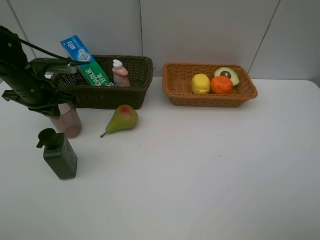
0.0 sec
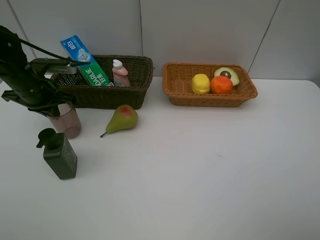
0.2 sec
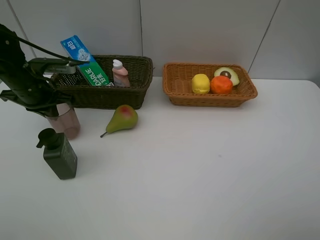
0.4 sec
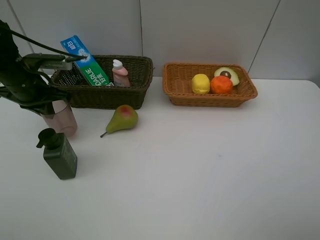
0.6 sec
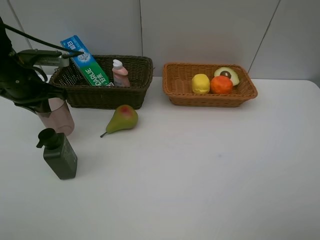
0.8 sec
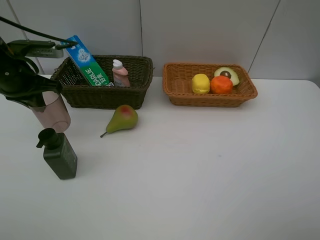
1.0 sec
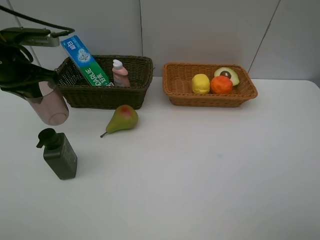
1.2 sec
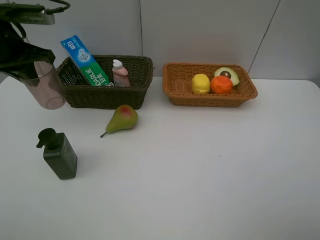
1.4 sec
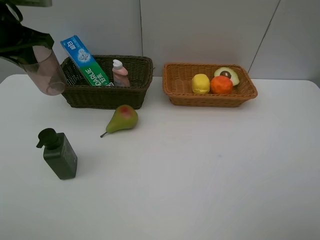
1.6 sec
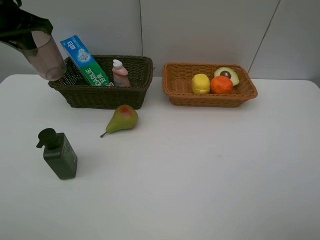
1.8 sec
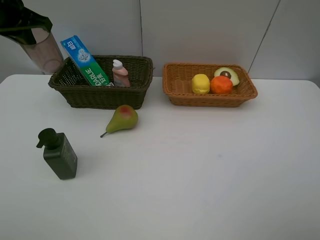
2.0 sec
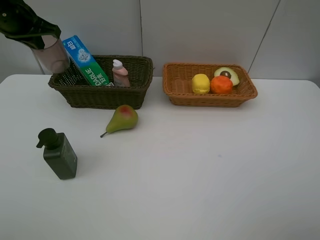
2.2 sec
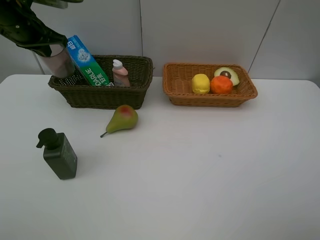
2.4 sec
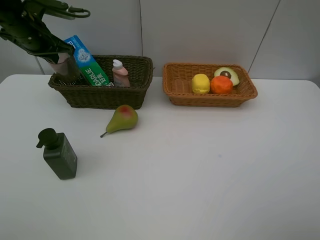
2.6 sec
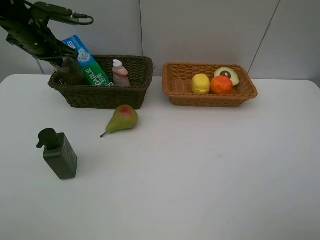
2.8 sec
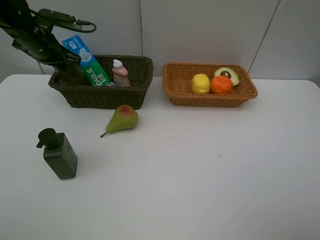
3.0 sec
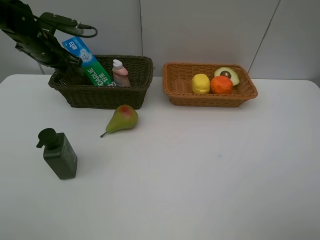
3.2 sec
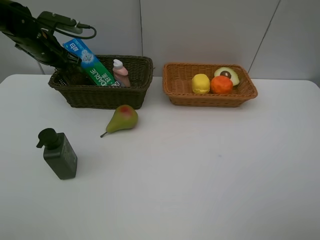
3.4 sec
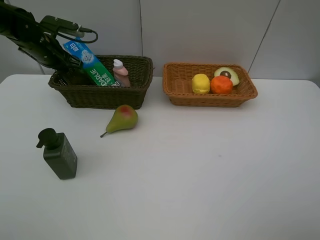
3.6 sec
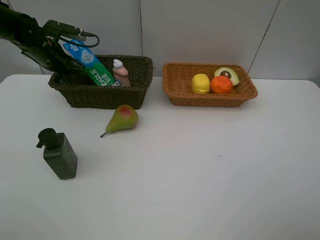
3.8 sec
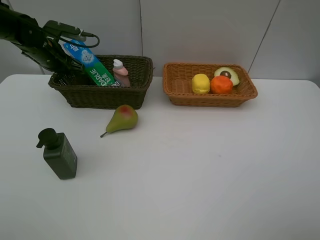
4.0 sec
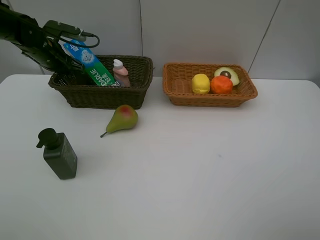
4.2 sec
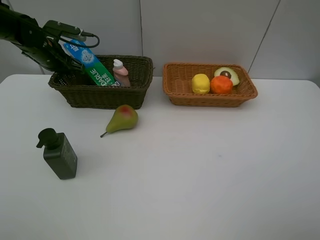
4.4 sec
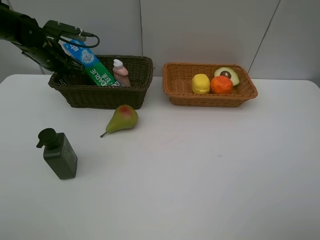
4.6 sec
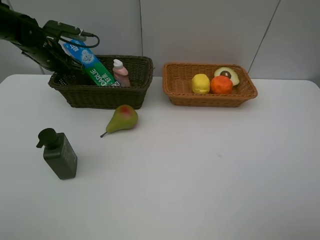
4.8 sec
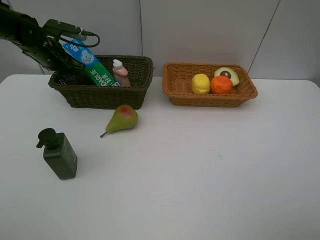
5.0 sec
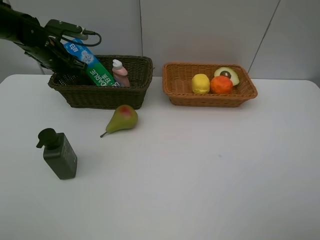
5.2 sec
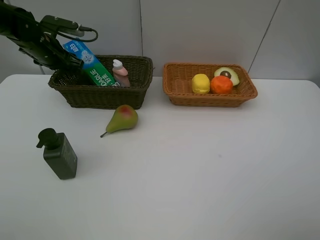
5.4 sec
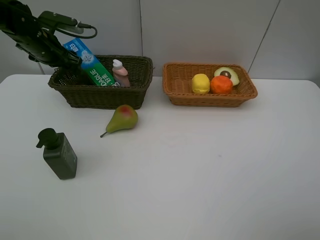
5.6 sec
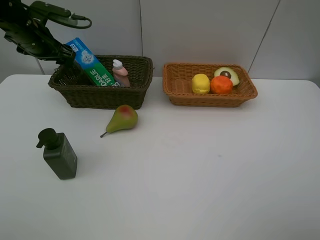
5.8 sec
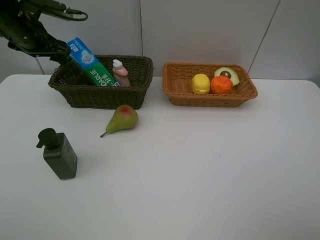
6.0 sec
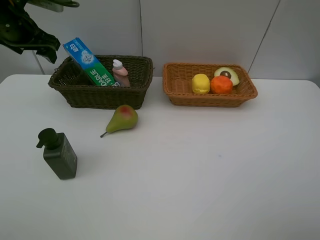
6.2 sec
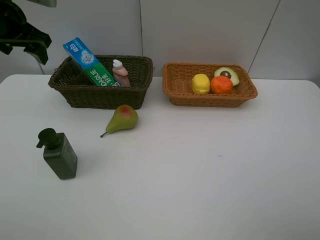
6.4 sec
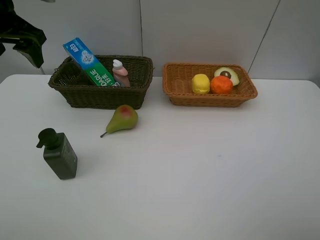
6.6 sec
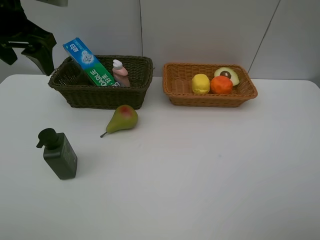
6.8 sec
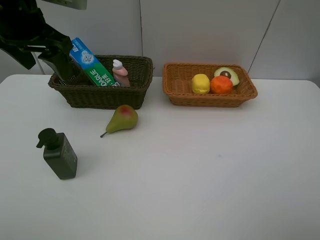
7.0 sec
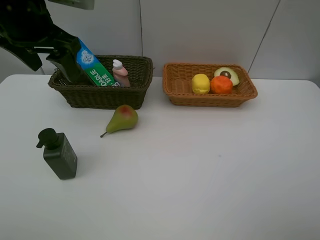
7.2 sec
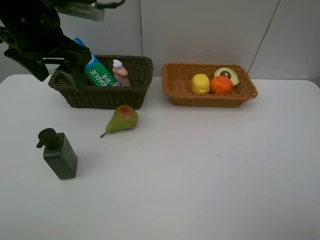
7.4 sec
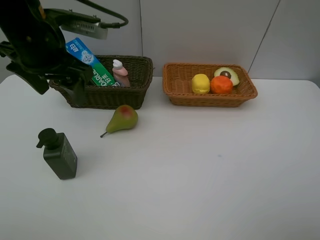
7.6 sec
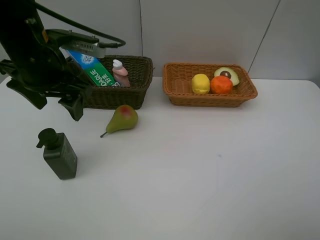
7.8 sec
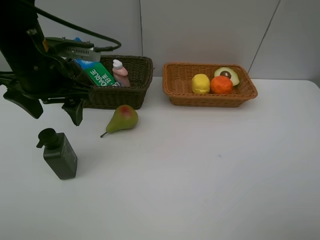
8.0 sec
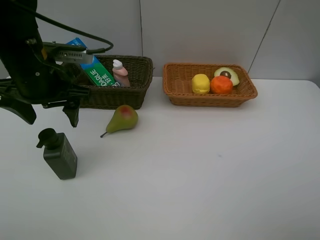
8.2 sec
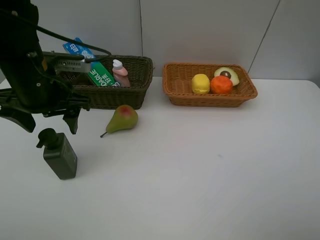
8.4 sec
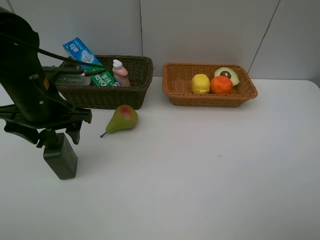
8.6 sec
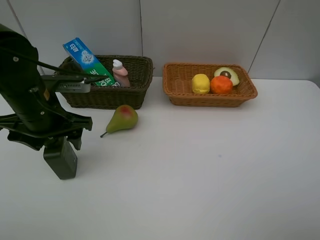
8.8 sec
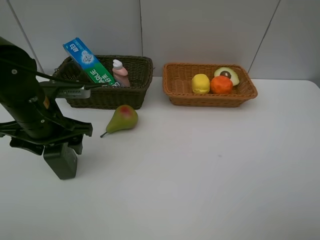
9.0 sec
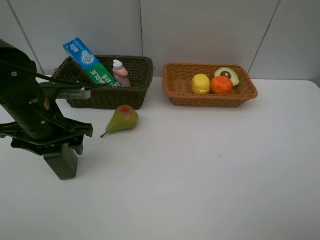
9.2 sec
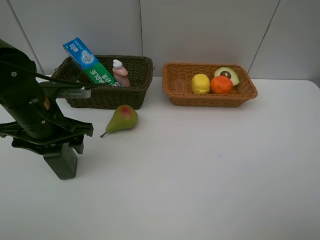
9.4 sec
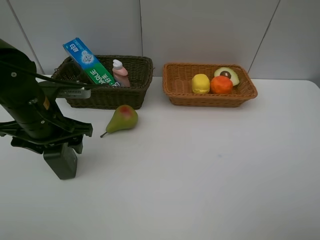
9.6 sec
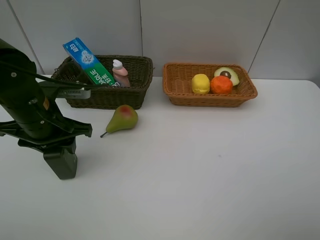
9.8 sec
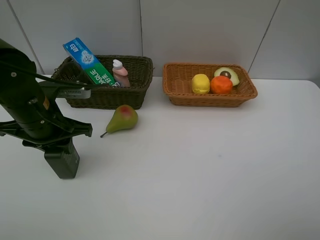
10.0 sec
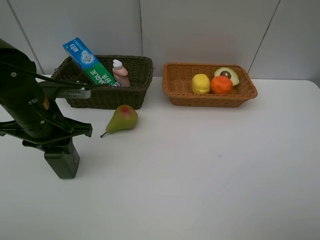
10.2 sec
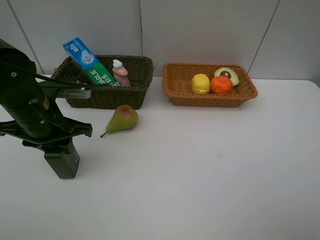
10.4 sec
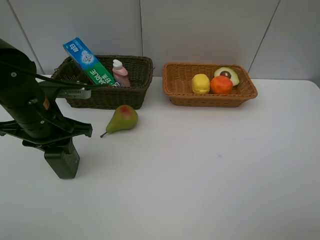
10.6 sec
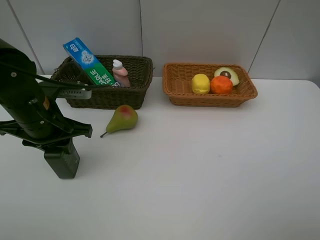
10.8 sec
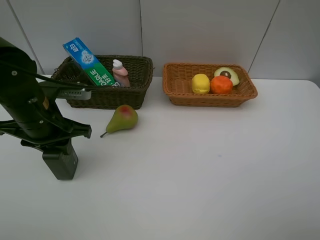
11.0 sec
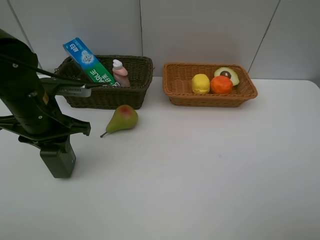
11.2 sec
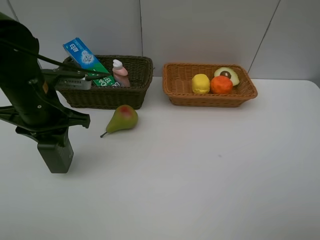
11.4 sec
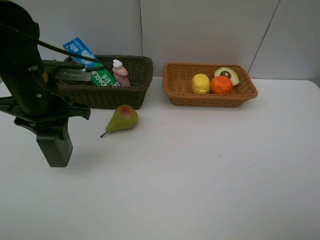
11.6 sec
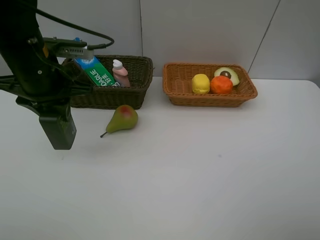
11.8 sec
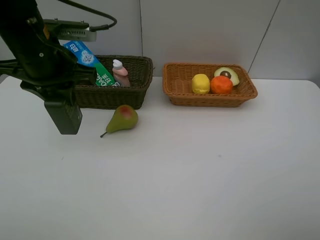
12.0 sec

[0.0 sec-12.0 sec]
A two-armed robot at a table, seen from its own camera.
Task of the whole recording: Place multiple objects separately in different baskets.
Step, 1.0 sec to 6.0 sec: Place the red cup in the dark basket with left gripper.
Step, 6.2 sec to 11.4 sec: Pick up the hard facial cleanser with left gripper.
0.0 sec to 1.6 sec: The left gripper heads upward, covering some 15 cm.
1.6 sec to 3.0 sec: The left gripper travels downward and forward by about 15 cm.
3.0 sec to 4.4 sec: The grippers move only a little.
4.4 sec to 6.0 sec: The left gripper moves upward, approximately 5 cm, and opens.
6.0 sec to 7.6 sec: The left gripper travels backward and to the right by about 20 cm.
7.6 sec to 9.0 sec: The left gripper travels downward by approximately 10 cm.
9.0 sec to 10.4 sec: The left gripper closes up.
10.4 sec to 12.0 sec: The left gripper moves upward, some 10 cm.

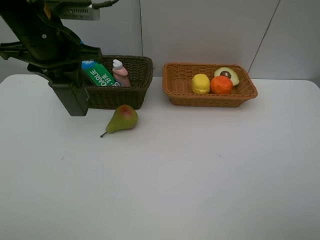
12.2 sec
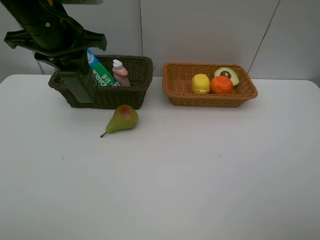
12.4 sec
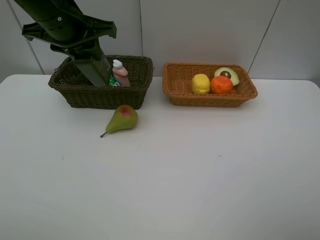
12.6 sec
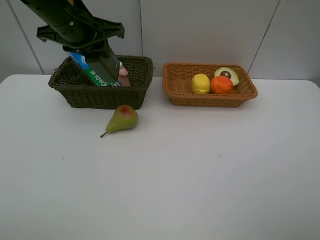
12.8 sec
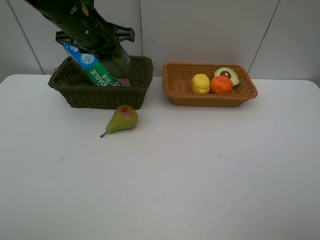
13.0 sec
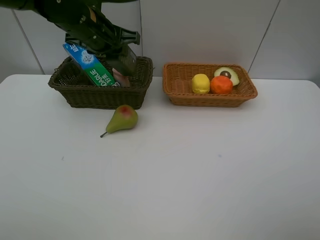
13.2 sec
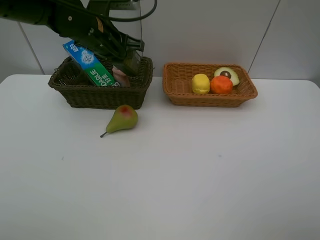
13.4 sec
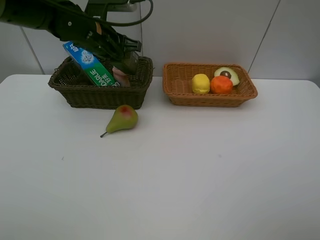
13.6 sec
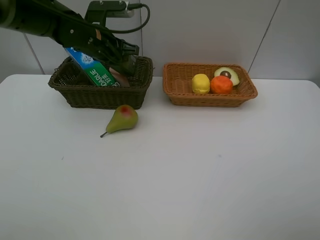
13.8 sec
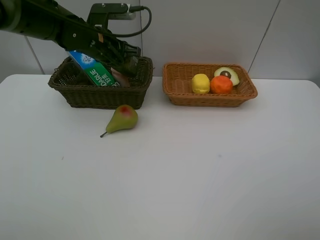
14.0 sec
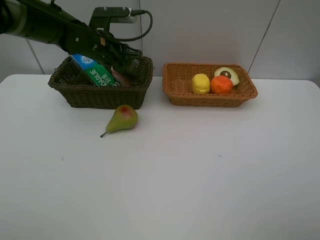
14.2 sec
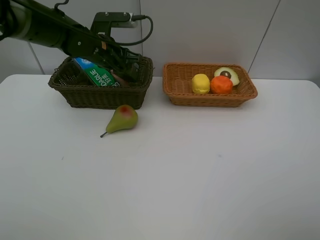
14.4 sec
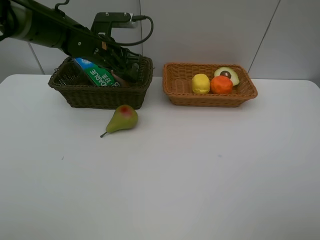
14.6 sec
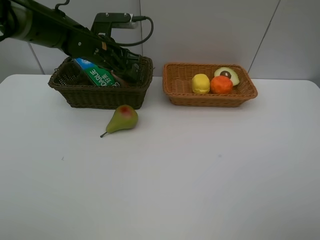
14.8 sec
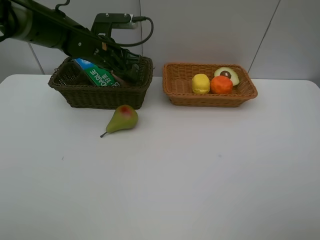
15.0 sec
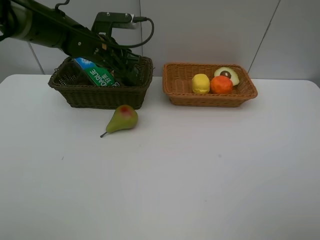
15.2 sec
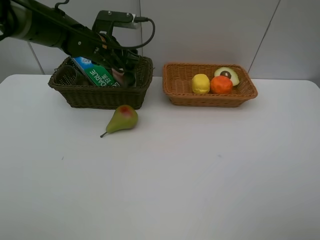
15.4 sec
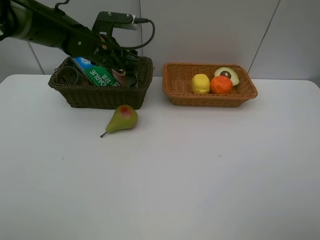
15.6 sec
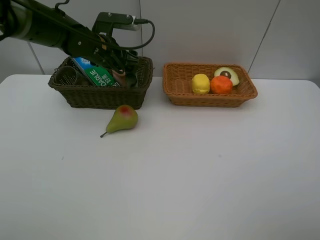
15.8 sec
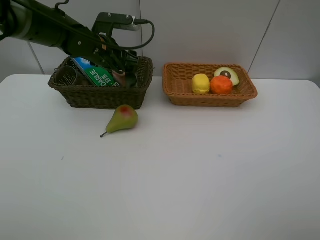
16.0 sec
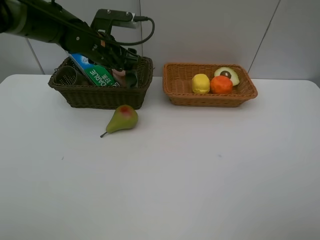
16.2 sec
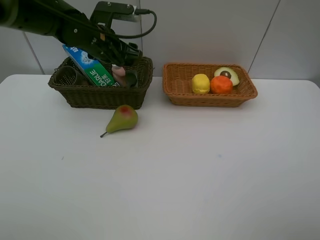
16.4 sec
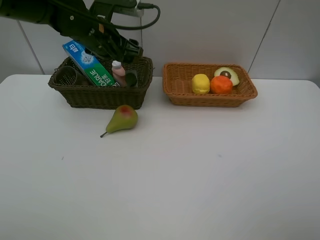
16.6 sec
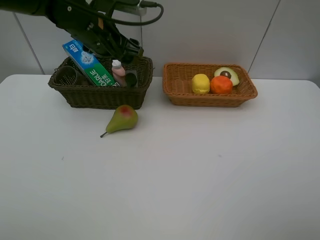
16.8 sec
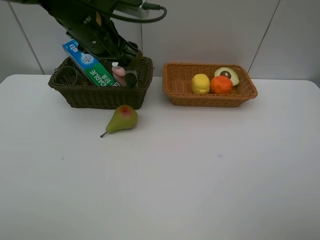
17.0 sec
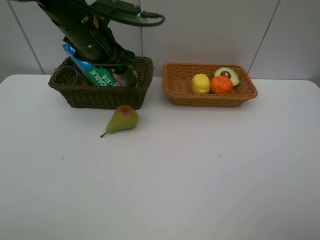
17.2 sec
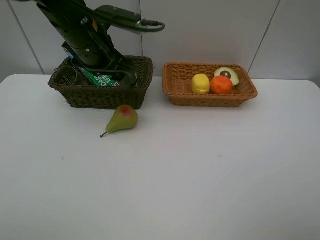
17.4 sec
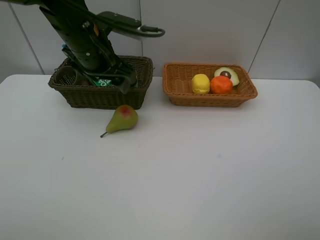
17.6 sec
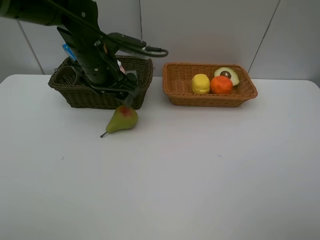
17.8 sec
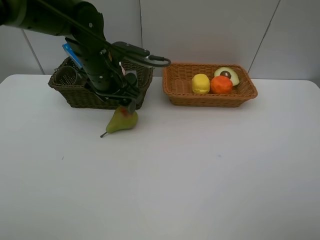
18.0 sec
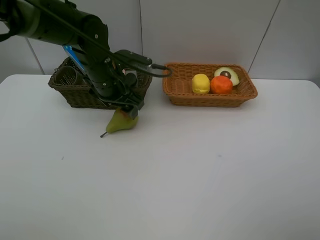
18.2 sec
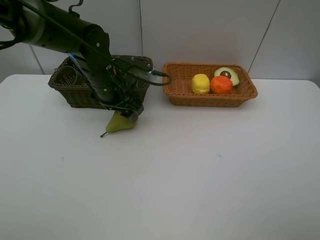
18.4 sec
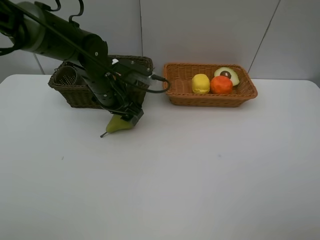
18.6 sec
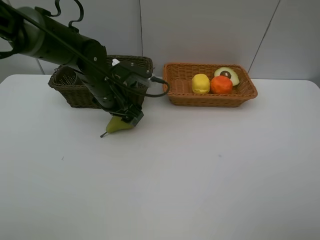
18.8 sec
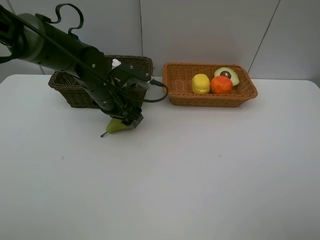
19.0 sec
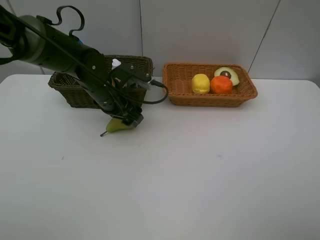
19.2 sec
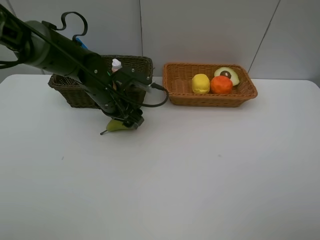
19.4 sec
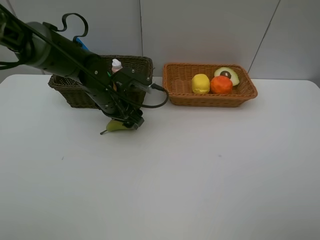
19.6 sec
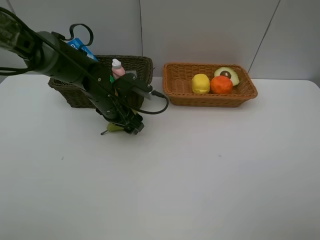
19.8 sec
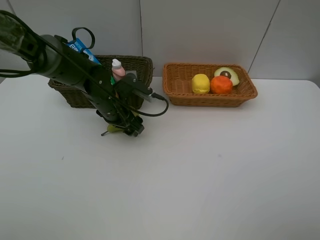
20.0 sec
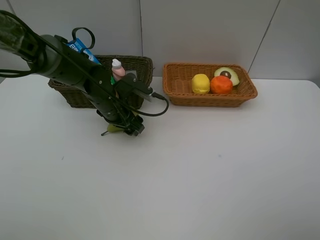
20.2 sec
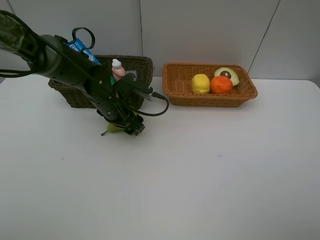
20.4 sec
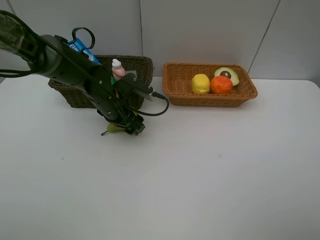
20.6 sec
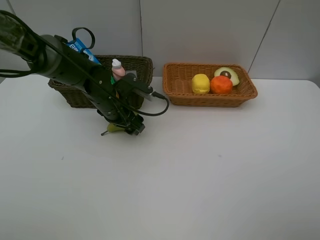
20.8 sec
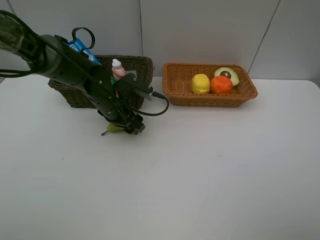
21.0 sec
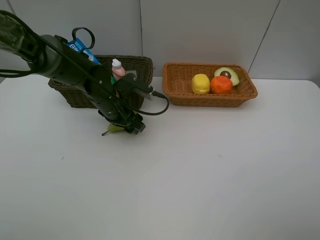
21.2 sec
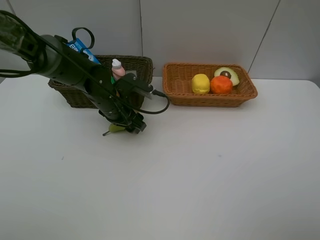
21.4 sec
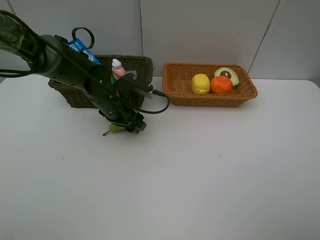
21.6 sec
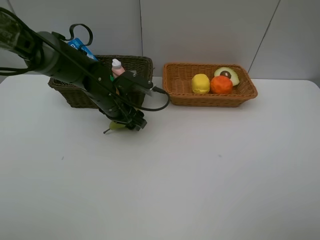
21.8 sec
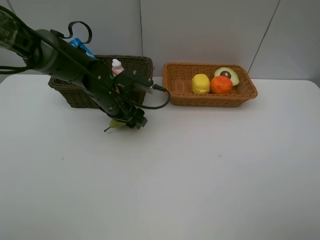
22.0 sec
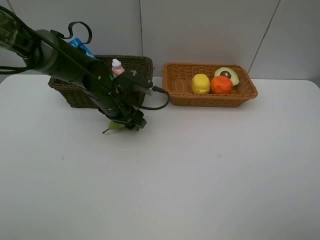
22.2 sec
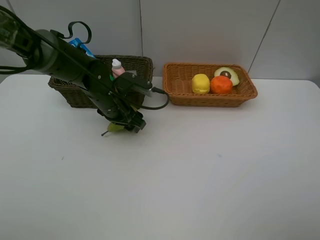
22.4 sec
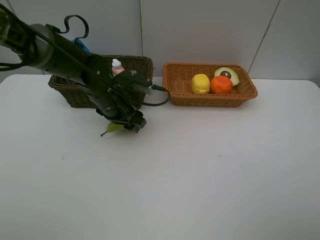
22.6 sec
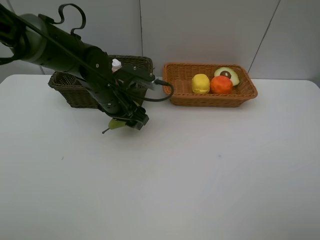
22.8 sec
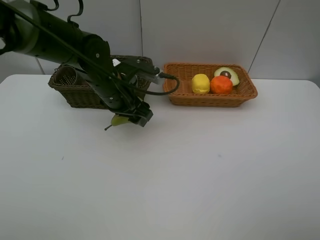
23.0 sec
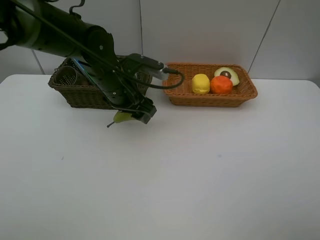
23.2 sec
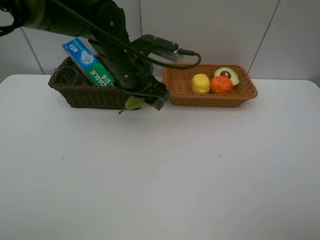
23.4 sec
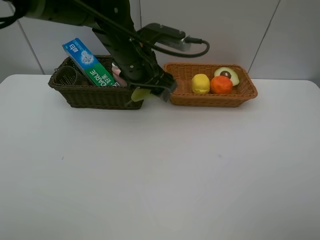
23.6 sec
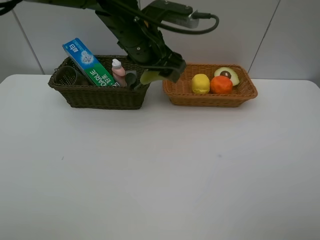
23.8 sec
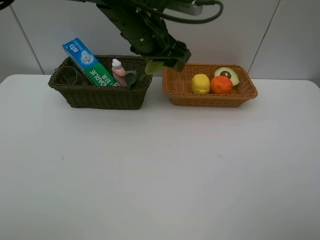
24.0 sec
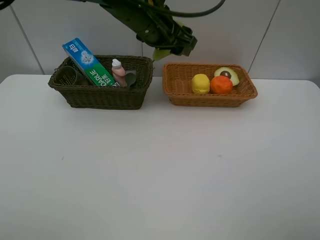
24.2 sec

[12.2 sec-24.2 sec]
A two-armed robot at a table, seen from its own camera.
Task of the whole recording: Place multiple objects separately in different baskets.
Step, 12.2 sec to 16.4 sec: Place the hard facial cleanser in the dark basket with left gripper.
Step, 16.6 sec to 22.8 sec: Pick up the pear with left gripper.
12.2 sec to 13.8 sec: The left gripper shifts approximately 15 cm forward and downward.
13.8 sec to 15.2 sec: The grippers stay close to where they were, moving slightly.
15.2 sec to 16.6 sec: The left gripper shifts by roughly 5 cm.
16.6 sec to 18.2 sec: The left gripper travels downward by roughly 5 cm.
18.2 sec to 19.8 sec: The left gripper heads downward, covering approximately 5 cm.
19.8 sec to 21.2 sec: Both grippers stay put.
21.2 sec to 22.6 sec: There are only small adjustments of the grippers.
22.6 sec to 24.2 sec: The left gripper moves upward and to the right, some 15 cm.
